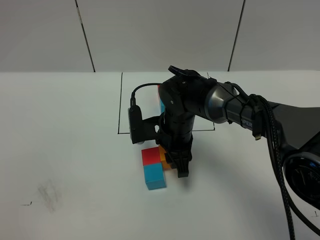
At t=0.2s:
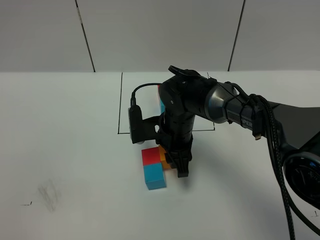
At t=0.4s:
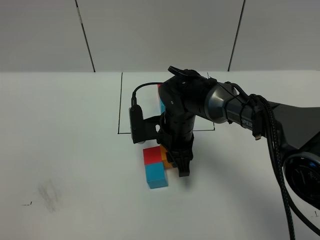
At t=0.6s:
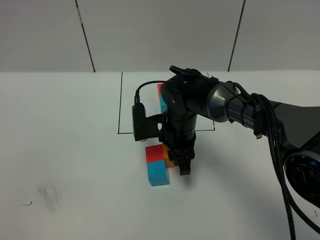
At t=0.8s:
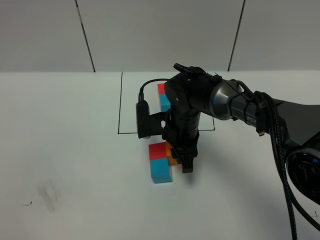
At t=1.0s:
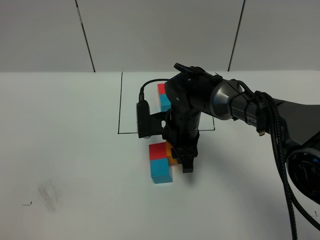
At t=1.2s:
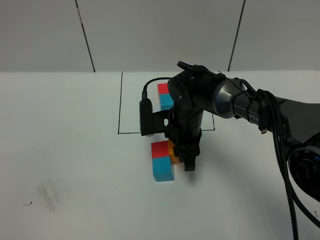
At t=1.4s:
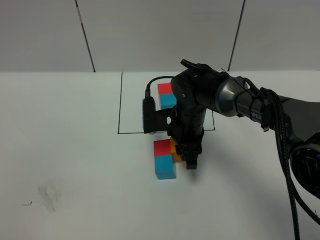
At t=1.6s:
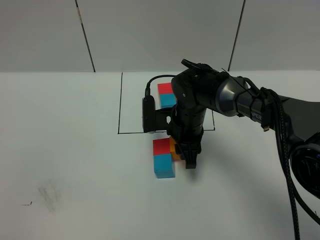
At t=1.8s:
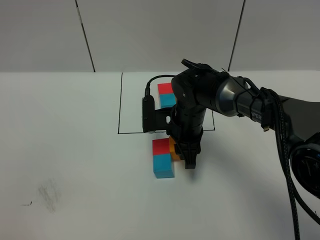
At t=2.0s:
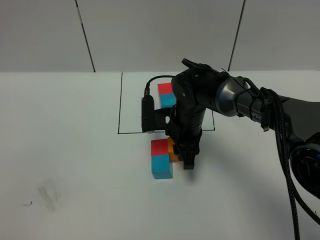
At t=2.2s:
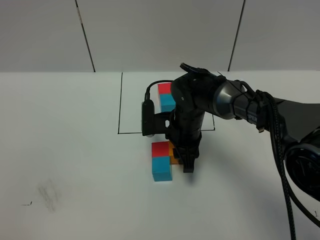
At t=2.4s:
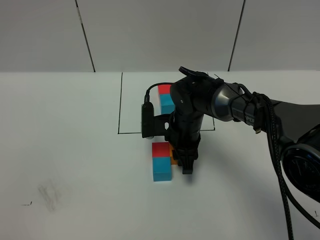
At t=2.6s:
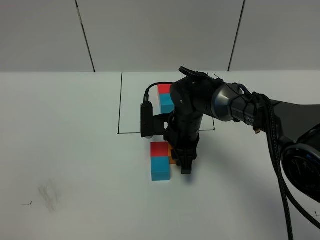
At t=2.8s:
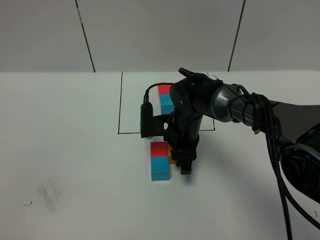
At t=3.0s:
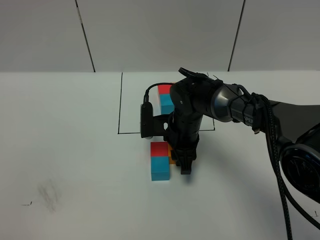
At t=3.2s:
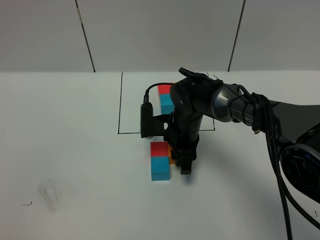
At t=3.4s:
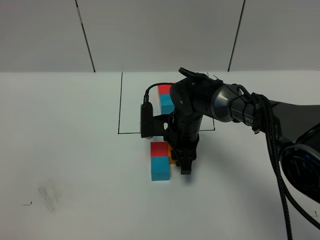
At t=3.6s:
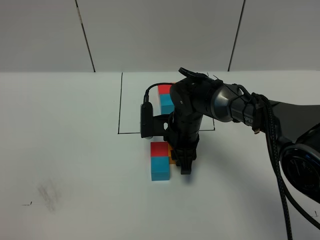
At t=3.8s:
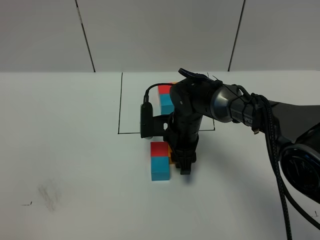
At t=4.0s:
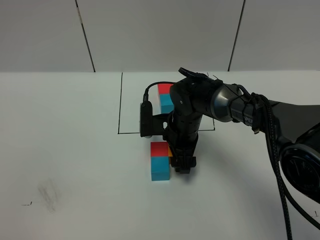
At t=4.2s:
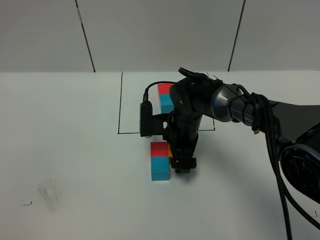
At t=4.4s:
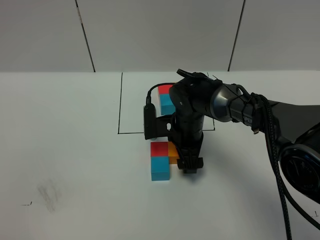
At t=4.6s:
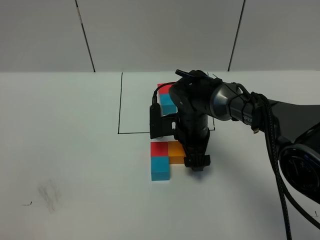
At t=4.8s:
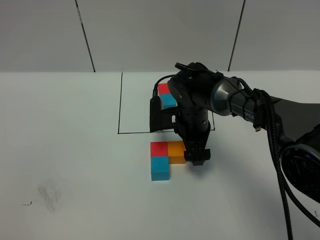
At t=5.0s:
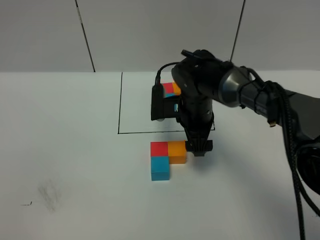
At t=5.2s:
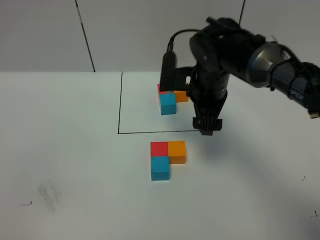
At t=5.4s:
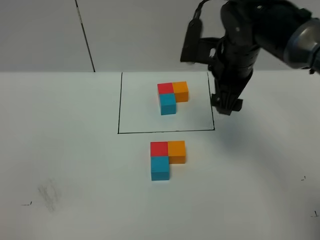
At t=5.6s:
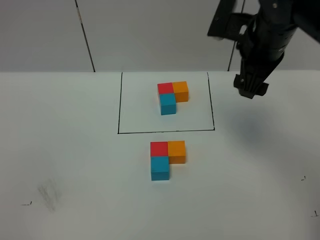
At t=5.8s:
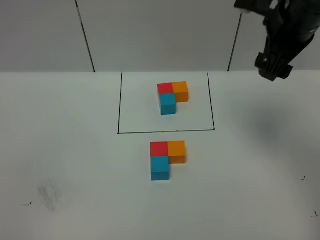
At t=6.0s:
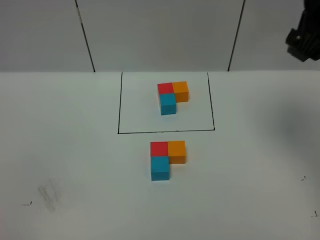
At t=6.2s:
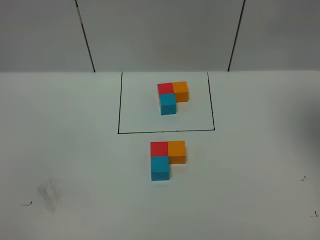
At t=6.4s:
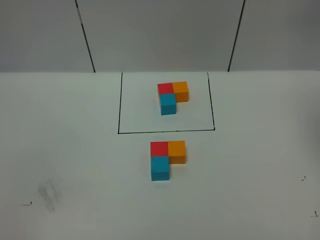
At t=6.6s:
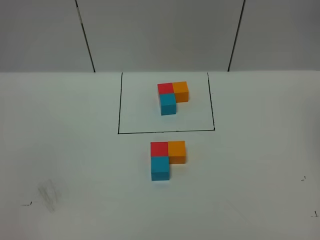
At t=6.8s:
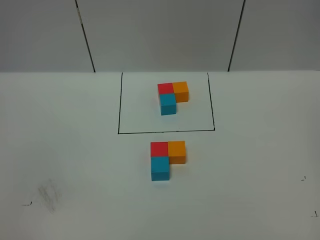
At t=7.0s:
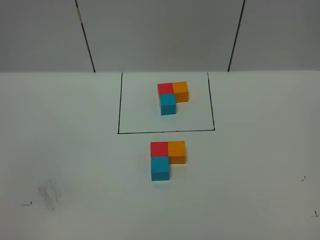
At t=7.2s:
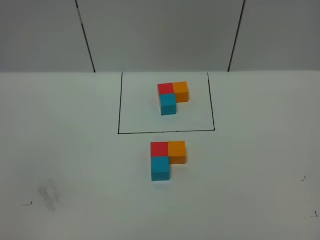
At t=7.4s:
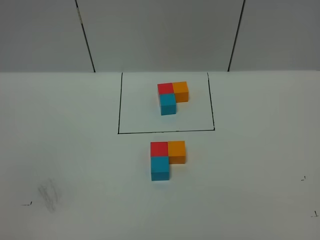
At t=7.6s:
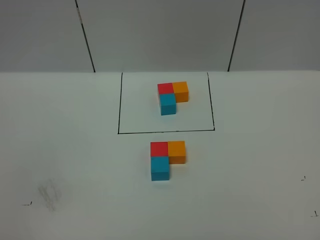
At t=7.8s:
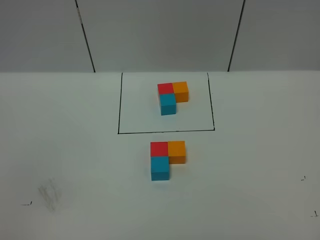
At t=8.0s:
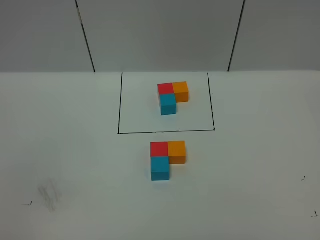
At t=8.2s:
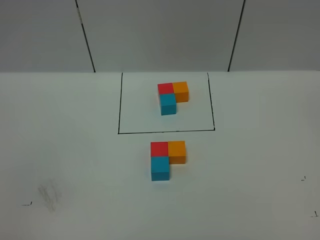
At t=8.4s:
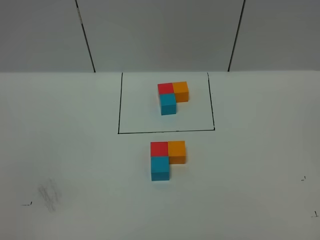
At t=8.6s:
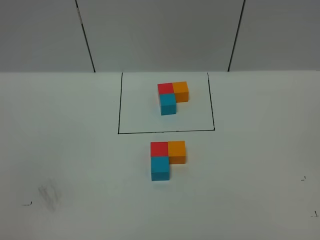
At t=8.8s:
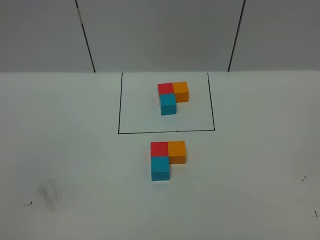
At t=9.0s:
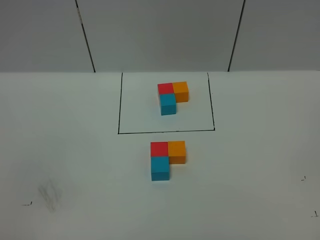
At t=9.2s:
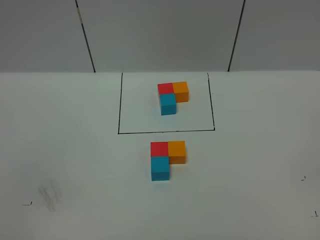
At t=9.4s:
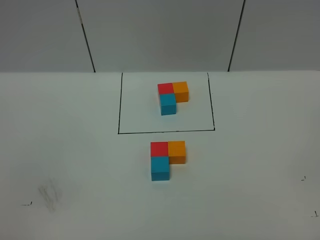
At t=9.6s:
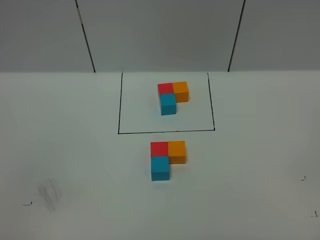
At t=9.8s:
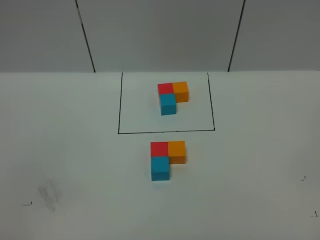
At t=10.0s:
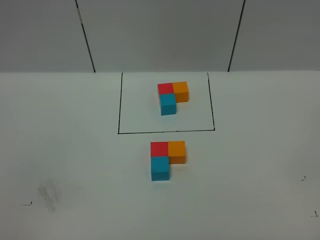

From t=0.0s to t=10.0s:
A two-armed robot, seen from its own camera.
Task of the whole recording: According to the building block template in front, assemble the scattered blocks together.
Step, from t=0.0s to t=5.4s: Adjust the pose of the building blocks.
From t=0.0s to t=2.8s: There are only small adjustments of the grippers.
From t=2.8s to t=4.2s: The right gripper opens its fingers.
From t=4.2s to t=5.8s: The right gripper is displaced upward and to the right by about 30 cm.
From t=5.8s to t=7.2s: The right gripper travels backward, upward and to the right by approximately 40 cm.

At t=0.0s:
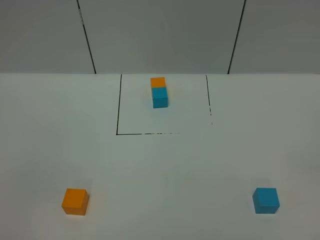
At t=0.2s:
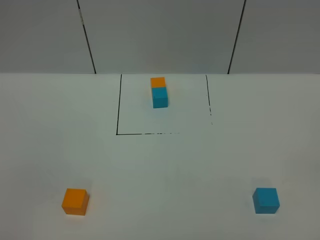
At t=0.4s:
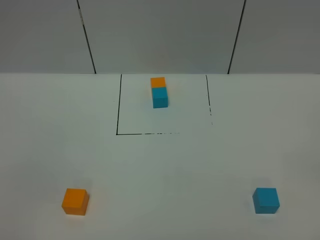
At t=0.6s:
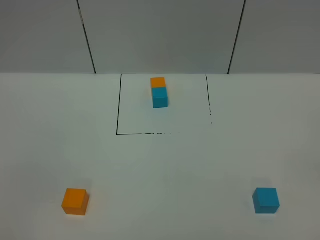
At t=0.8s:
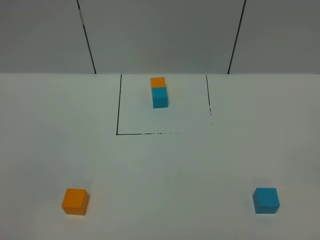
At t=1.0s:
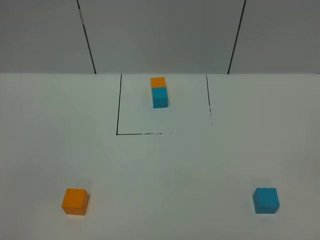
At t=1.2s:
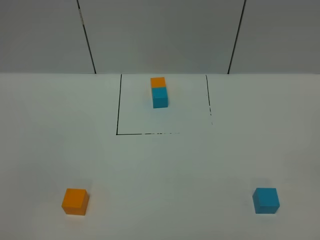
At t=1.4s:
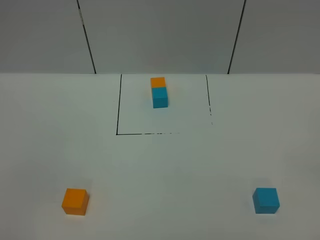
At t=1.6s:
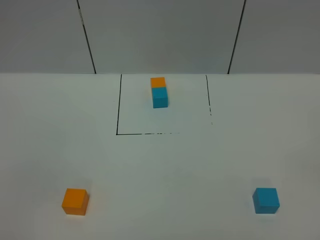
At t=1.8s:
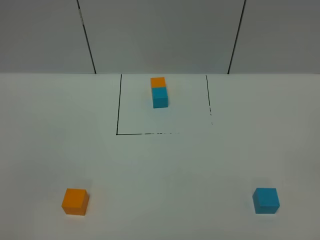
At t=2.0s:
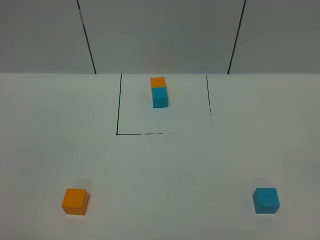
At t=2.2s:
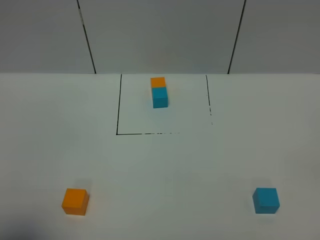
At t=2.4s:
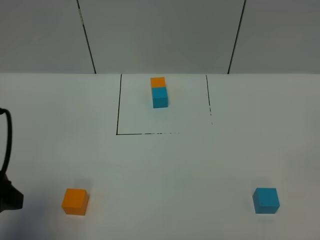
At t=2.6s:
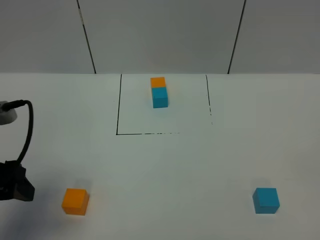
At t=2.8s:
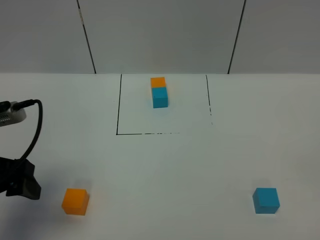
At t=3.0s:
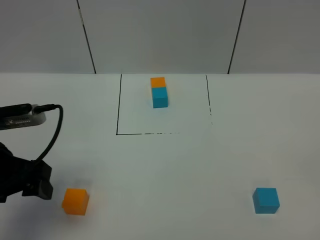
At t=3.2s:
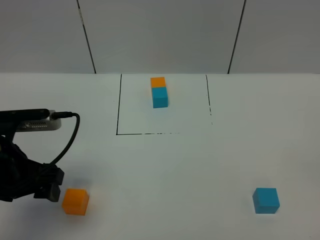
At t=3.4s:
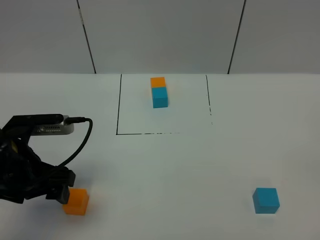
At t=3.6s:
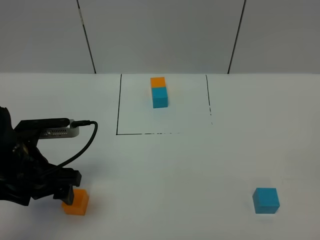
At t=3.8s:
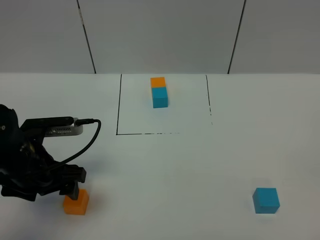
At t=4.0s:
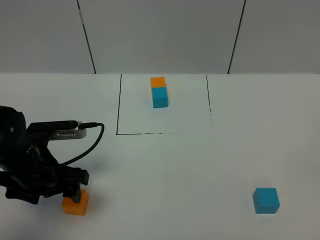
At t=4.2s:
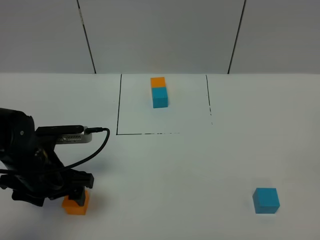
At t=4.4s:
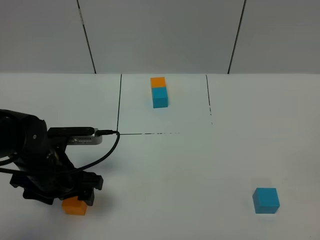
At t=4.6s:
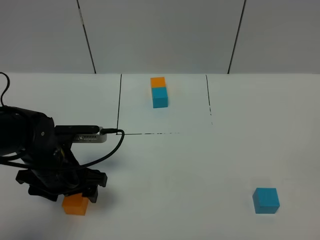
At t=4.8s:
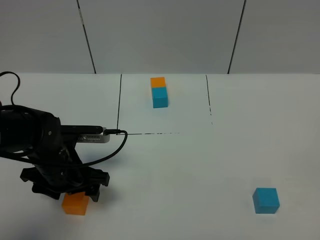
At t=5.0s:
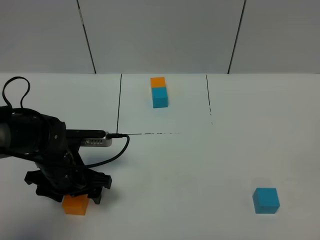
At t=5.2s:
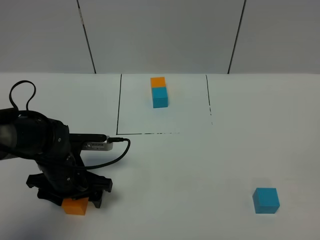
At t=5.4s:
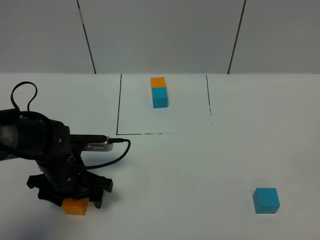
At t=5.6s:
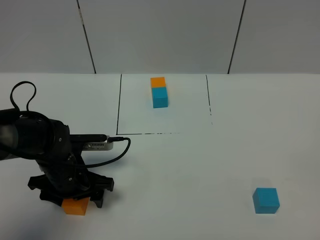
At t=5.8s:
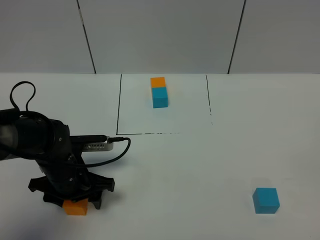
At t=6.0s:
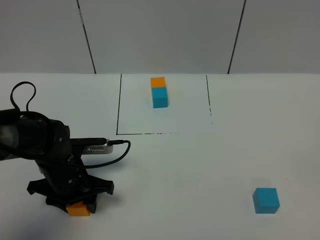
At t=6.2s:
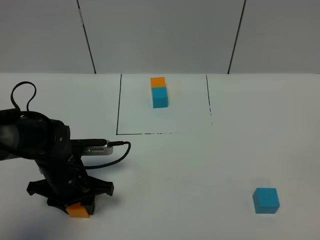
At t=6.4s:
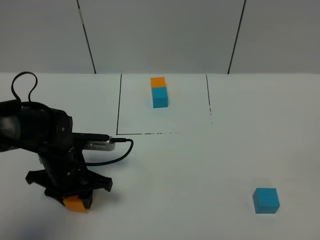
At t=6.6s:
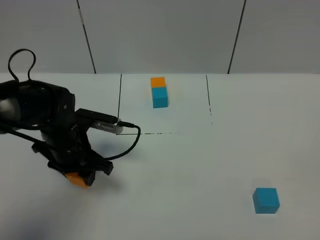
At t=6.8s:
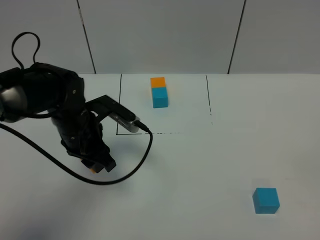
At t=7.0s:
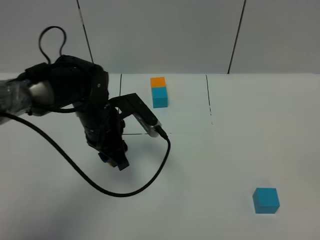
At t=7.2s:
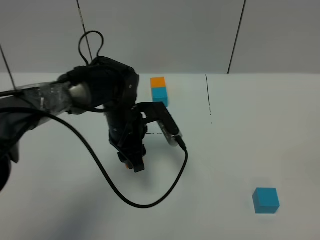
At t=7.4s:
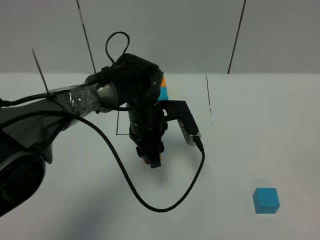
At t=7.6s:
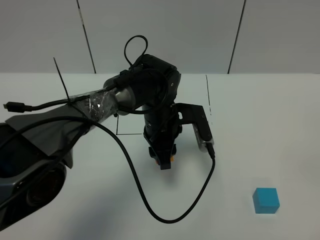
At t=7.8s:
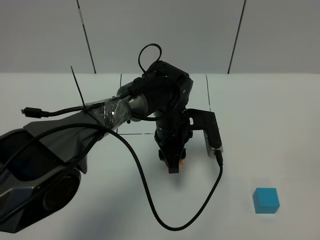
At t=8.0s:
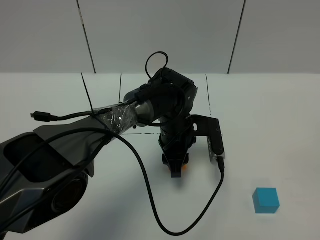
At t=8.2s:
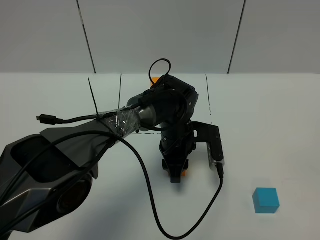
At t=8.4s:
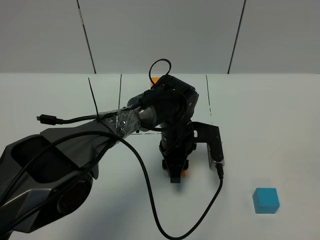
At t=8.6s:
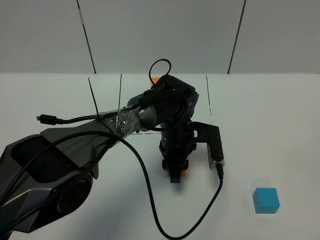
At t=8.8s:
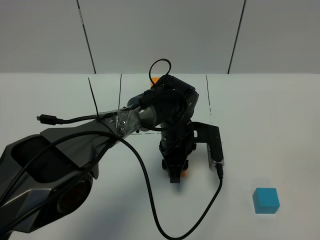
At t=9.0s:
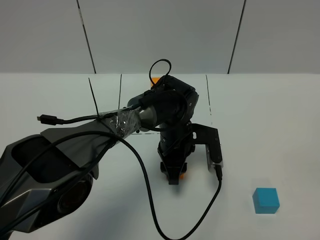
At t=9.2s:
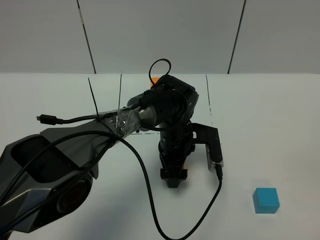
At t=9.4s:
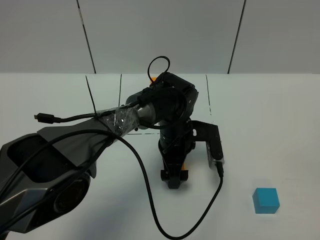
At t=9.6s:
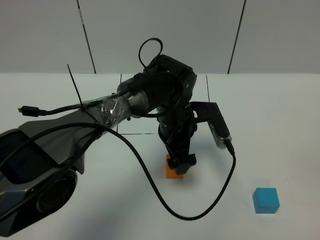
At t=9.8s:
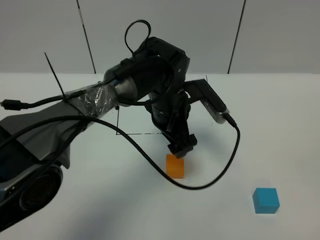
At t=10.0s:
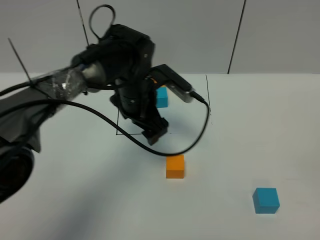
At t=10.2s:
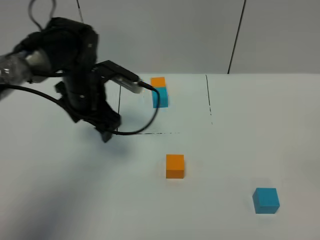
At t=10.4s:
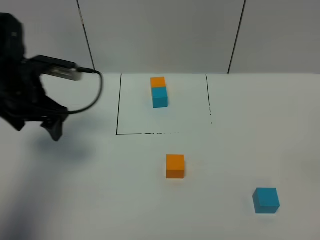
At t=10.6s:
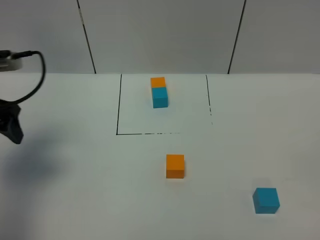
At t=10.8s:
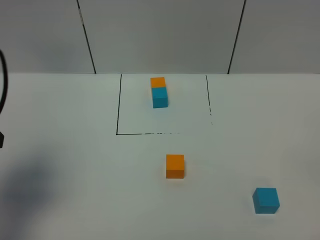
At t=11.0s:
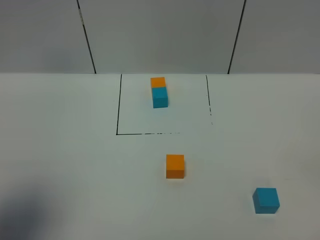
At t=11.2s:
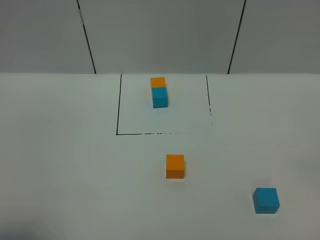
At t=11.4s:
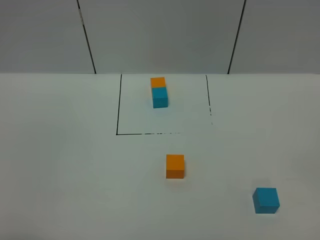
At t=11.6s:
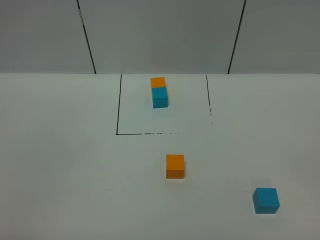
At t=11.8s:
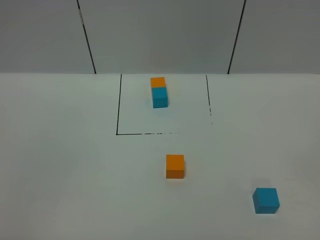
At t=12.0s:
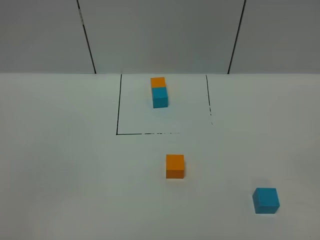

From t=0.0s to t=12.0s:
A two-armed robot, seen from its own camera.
Task of the whole recording: According to the building block template in front, assemble the scattered blocks together.
Step, from t=2.4s to t=9.2s: Put the orange cube in the center of the table.
From t=0.0s to t=1.6s: Both grippers stay put.
From t=1.6s to t=3.0s: The left gripper heads forward, covering approximately 25 cm.
From t=3.0s to t=4.4s: The left gripper moves downward, to the right and forward, approximately 10 cm.
From t=4.4s to t=6.0s: The left gripper shifts by approximately 5 cm, and closes up.
From t=6.0s to t=7.6s: The left gripper heads to the right and forward, covering about 20 cm.
From t=7.6s to t=9.0s: The left gripper moves some 5 cm.
From t=9.0s to t=10.4s: The left gripper goes some 30 cm to the left and upward, and opens up.
From t=10.4s to t=12.0s: The left gripper is displaced backward by some 40 cm.
